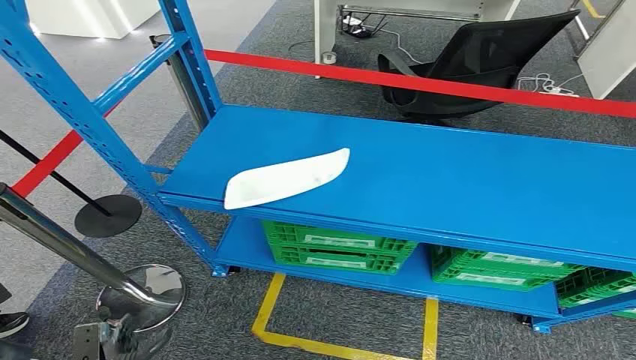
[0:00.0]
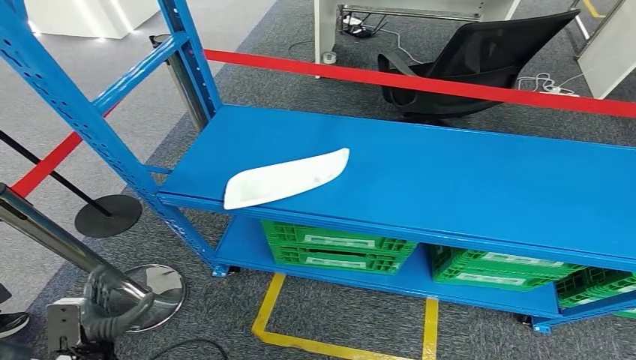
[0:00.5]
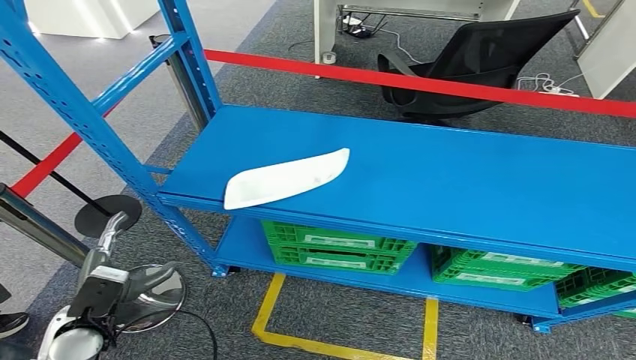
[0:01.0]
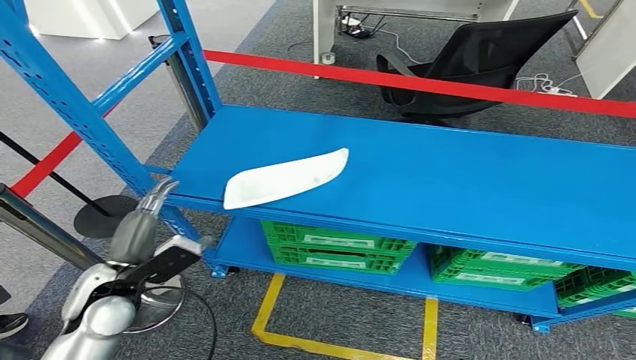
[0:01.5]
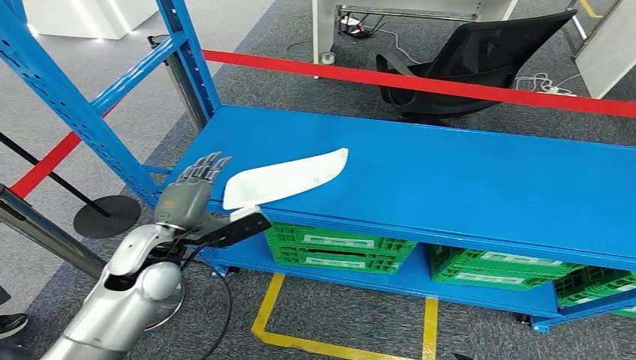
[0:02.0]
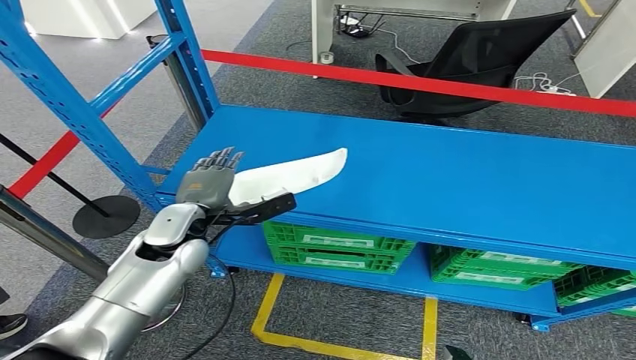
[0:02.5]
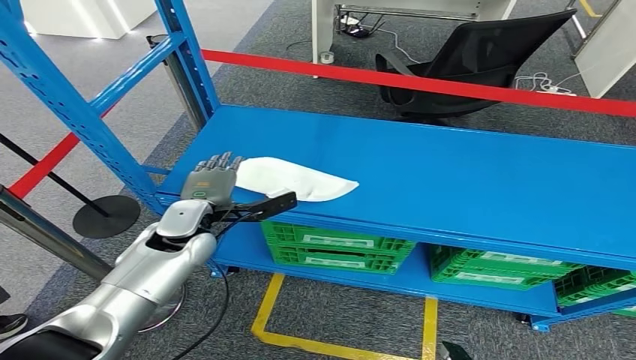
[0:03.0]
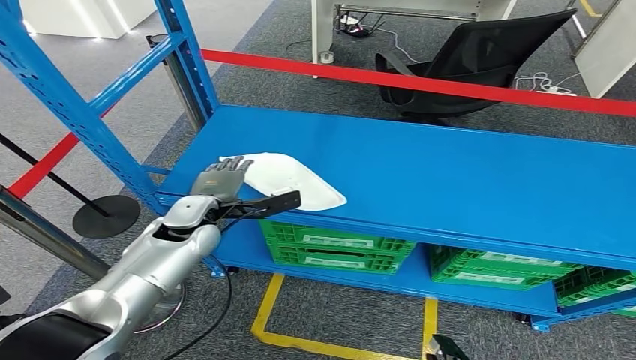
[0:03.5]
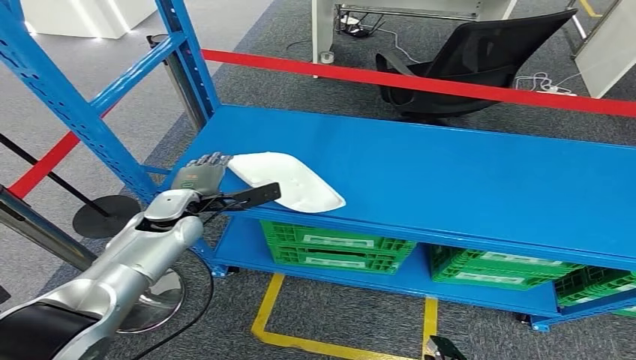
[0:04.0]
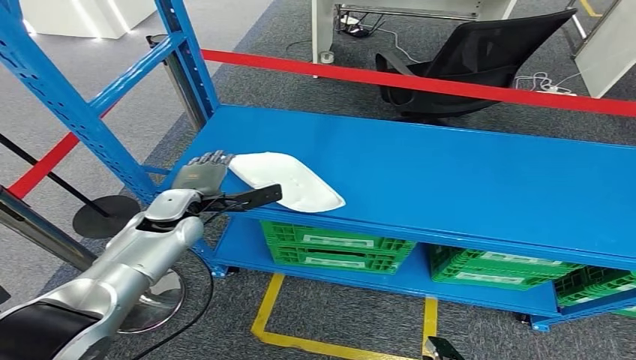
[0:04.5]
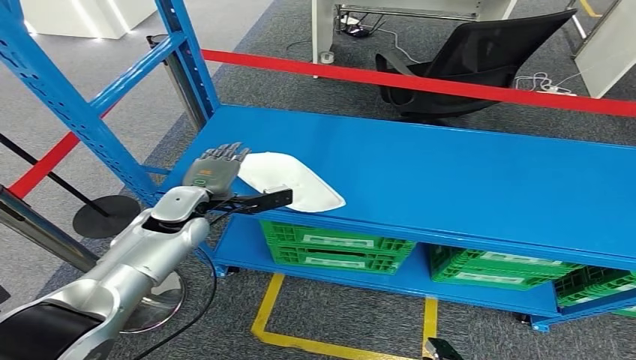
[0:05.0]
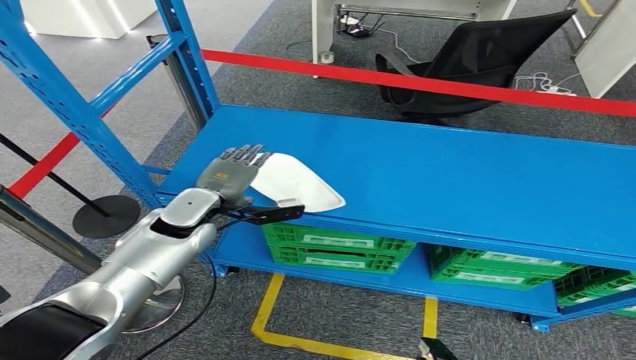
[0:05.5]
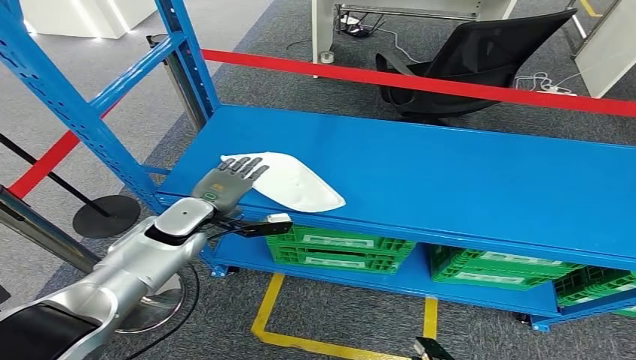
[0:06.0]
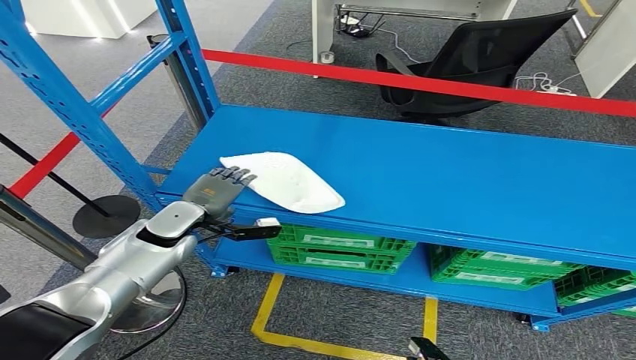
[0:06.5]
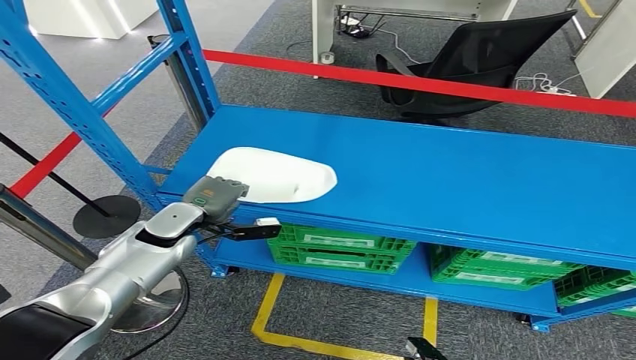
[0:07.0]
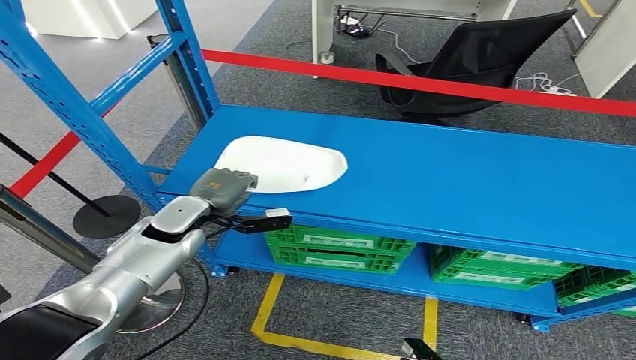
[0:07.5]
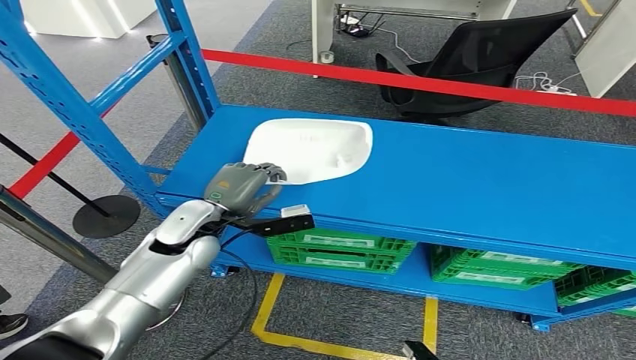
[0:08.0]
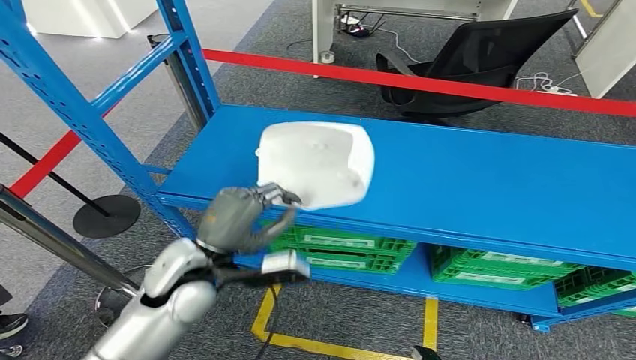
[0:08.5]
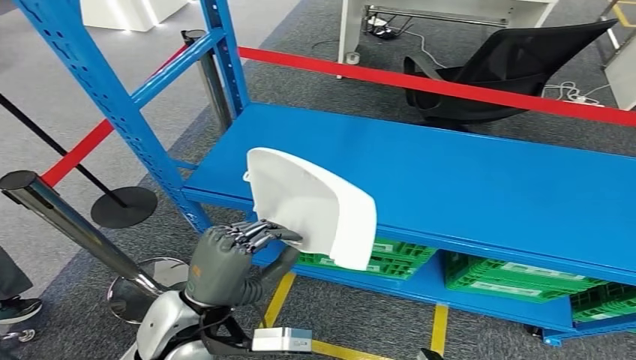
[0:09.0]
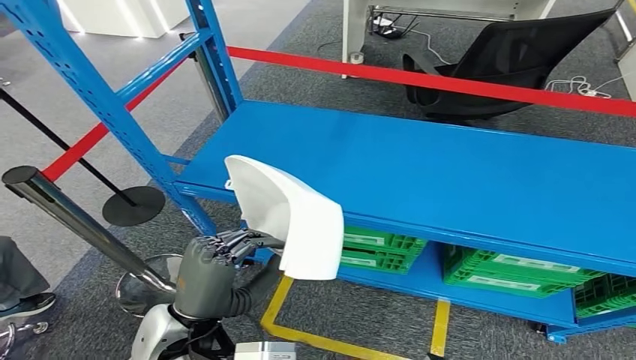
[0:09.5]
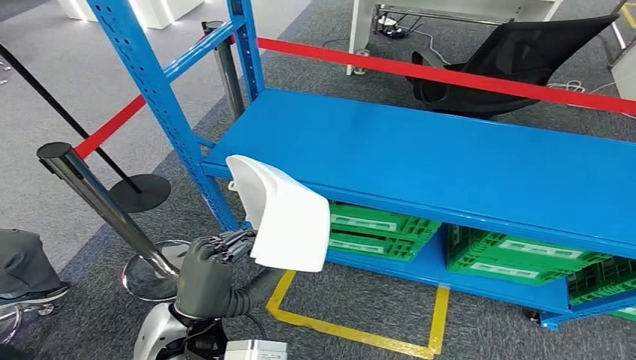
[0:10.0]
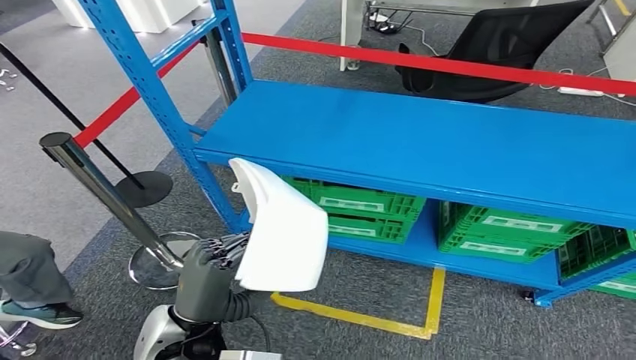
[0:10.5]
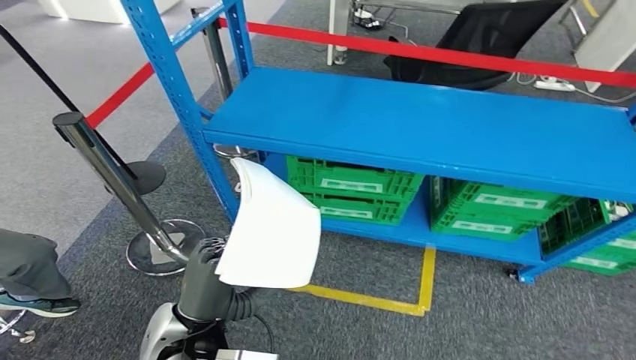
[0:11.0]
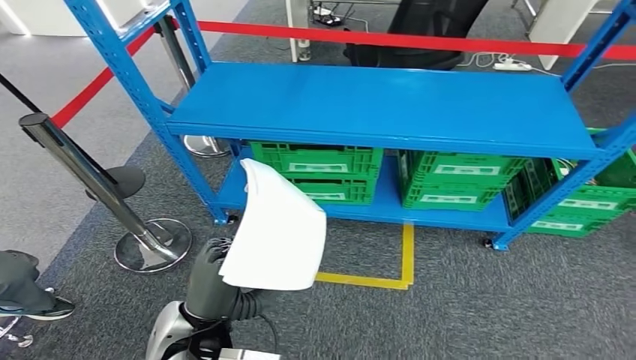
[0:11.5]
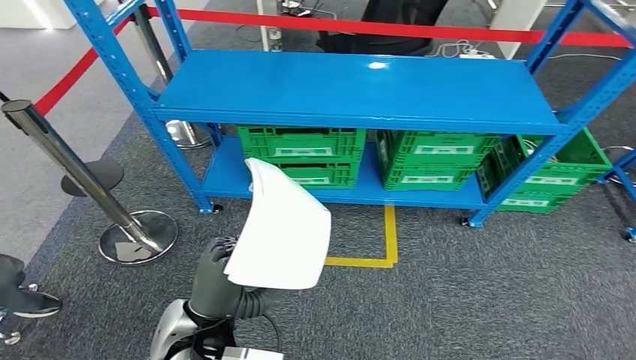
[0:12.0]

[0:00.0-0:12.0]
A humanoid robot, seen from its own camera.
Step, 0:00.0 to 0:09.0: Pick up the small component from the shelf.
0:02.0 to 0:04.0: The left hand heads forward, covering about 10 cm.
0:06.0 to 0:08.0: The left hand ends up approximately 5 cm from where it was.

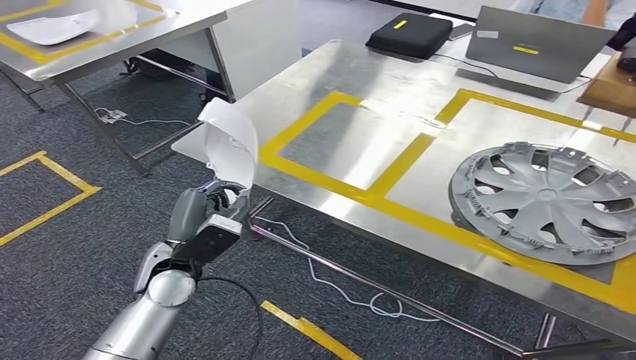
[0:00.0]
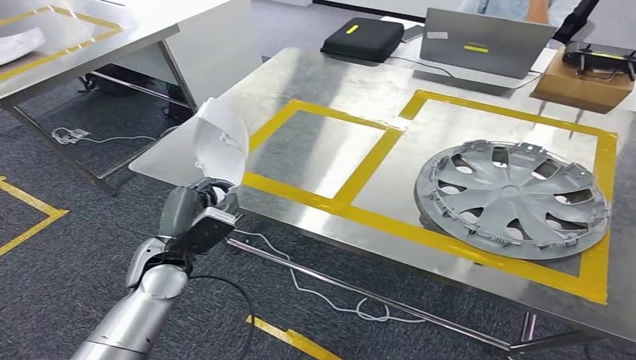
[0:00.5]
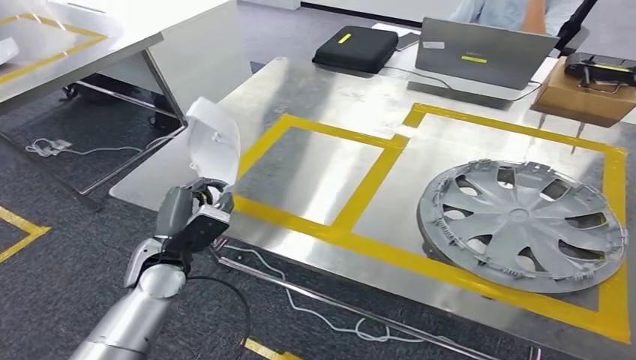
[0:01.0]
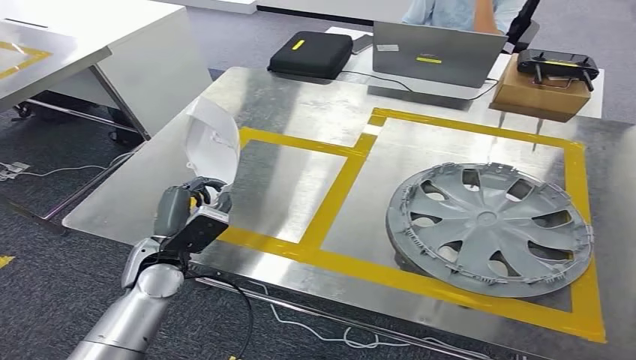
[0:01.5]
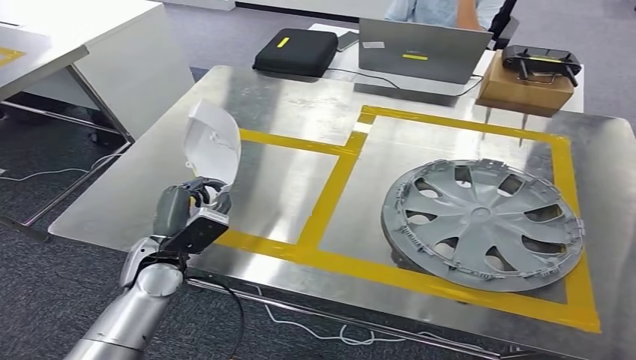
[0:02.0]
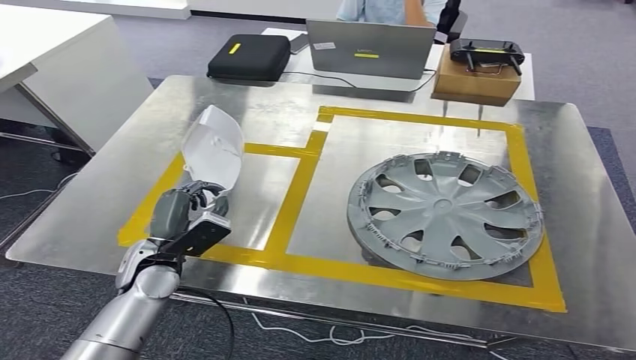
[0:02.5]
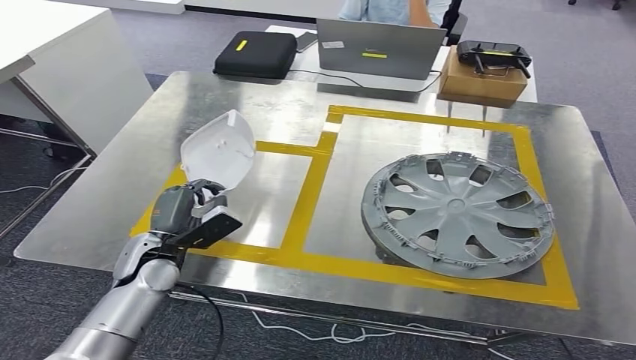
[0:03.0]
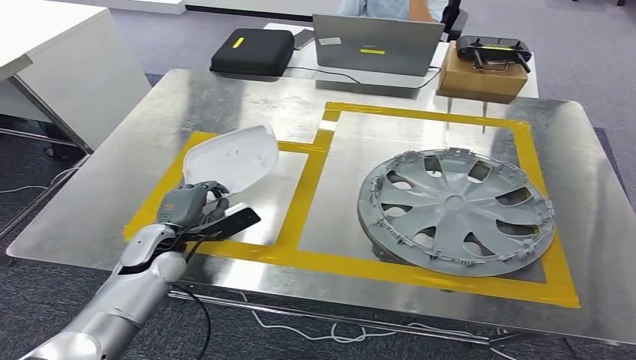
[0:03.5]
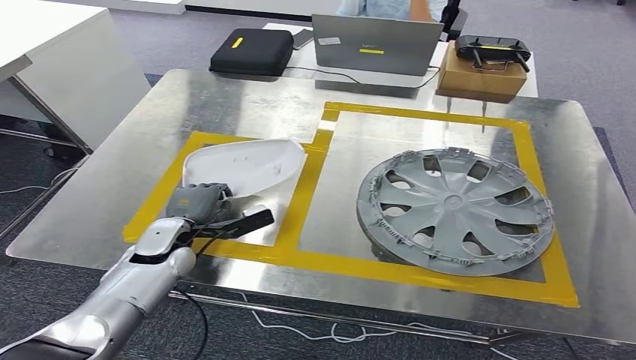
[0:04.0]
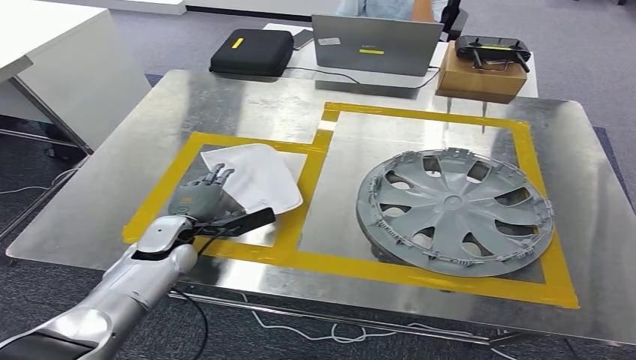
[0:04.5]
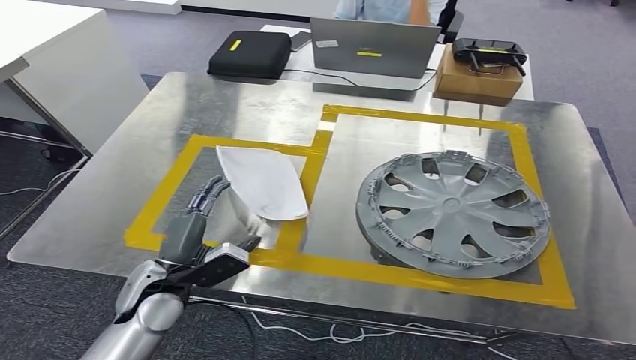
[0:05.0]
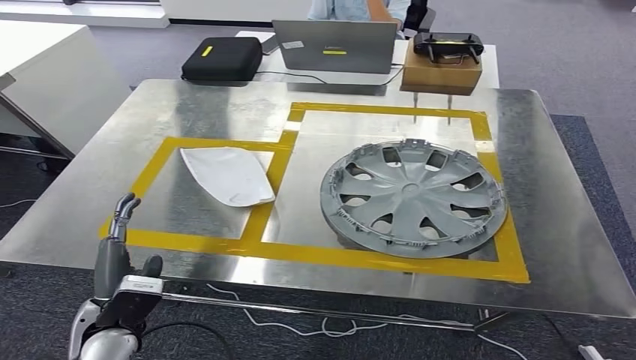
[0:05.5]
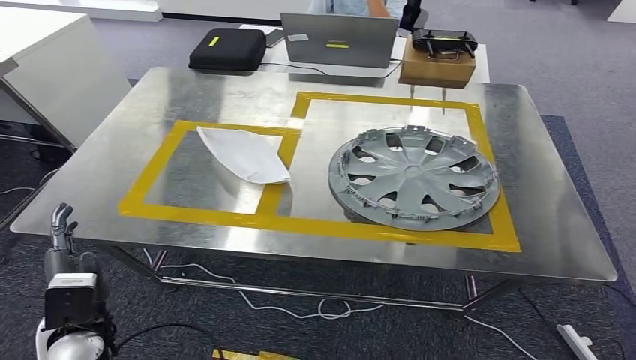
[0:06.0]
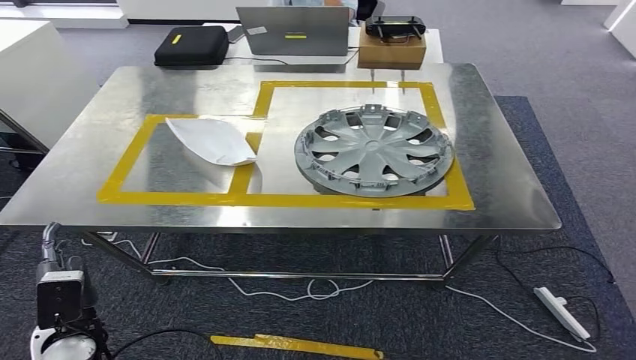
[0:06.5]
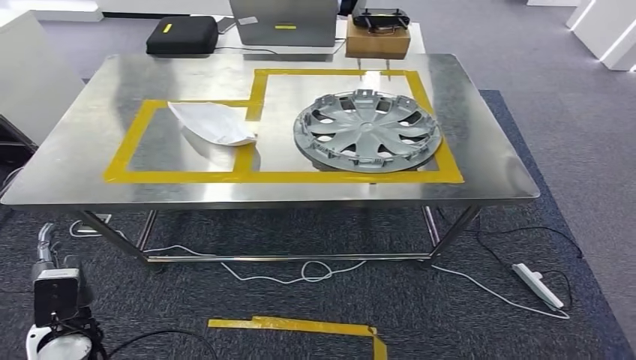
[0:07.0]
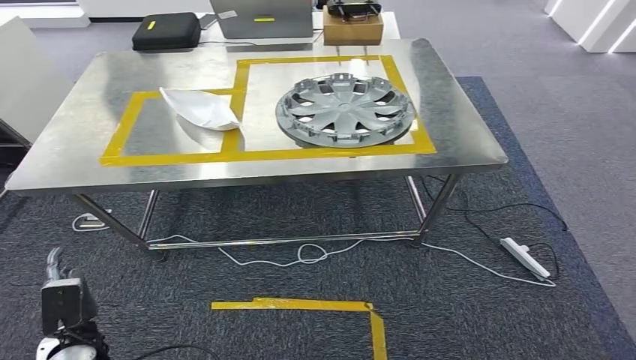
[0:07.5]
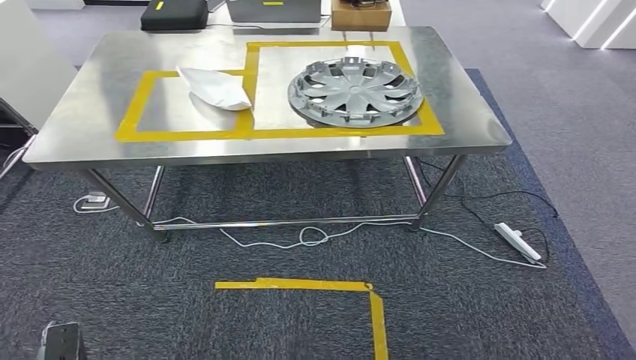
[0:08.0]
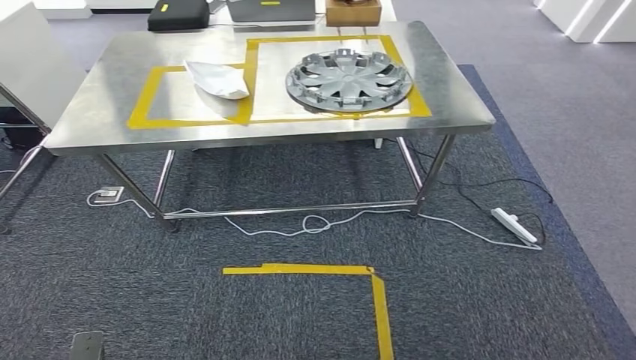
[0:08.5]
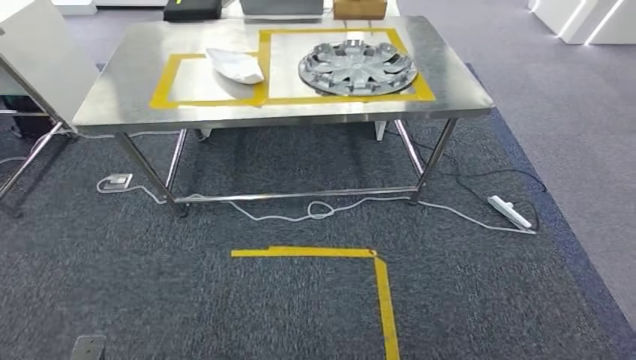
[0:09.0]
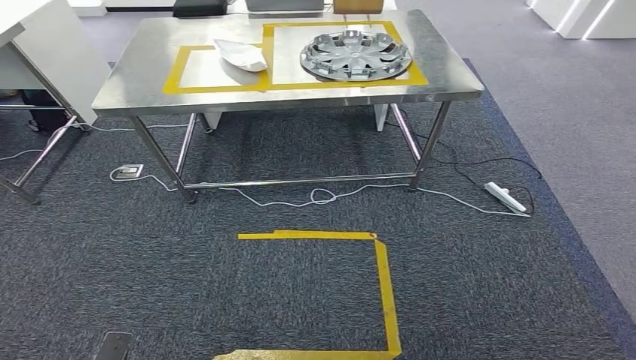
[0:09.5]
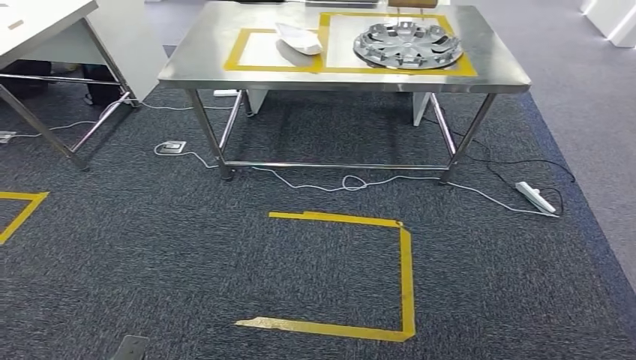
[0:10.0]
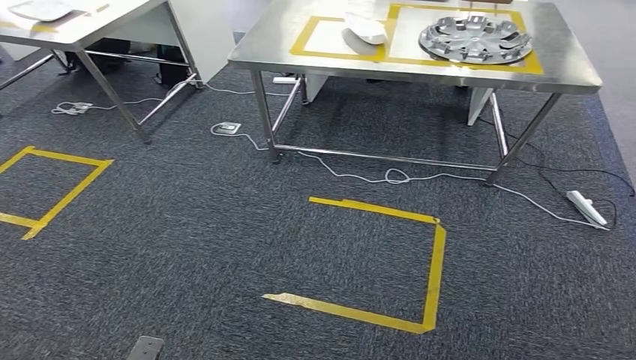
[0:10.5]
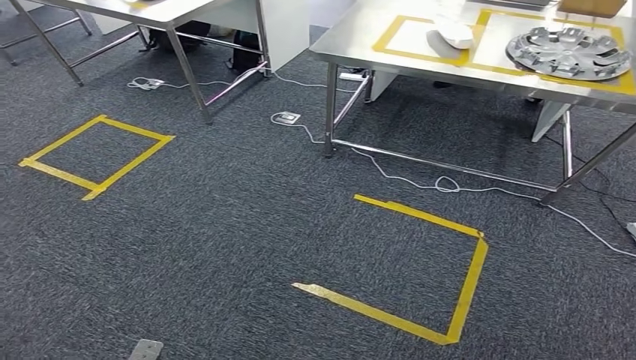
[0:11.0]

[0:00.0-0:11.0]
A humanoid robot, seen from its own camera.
Step, 0:01.5 to 0:06.5: Insert the small component into the corresponding slot on the workbench.
